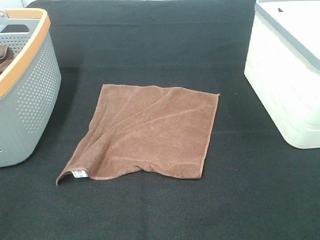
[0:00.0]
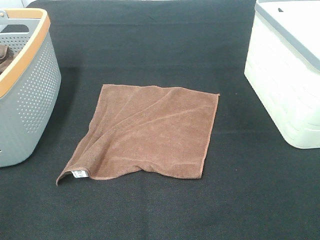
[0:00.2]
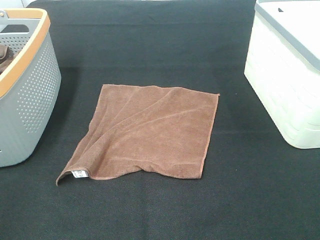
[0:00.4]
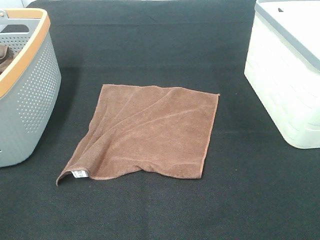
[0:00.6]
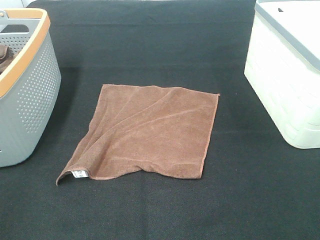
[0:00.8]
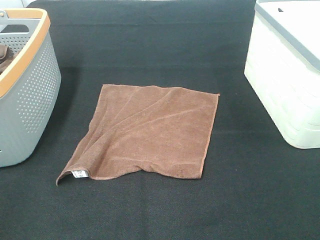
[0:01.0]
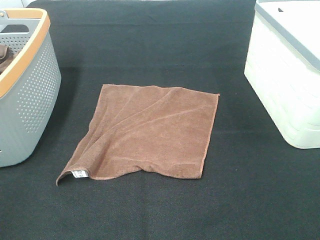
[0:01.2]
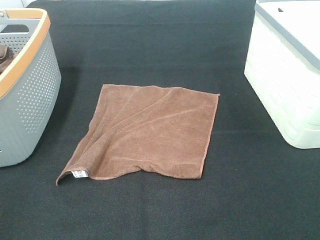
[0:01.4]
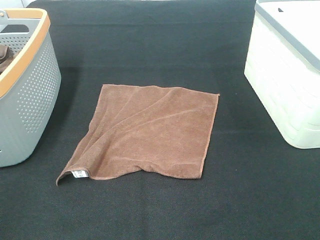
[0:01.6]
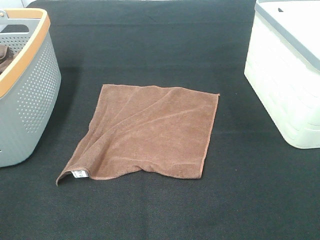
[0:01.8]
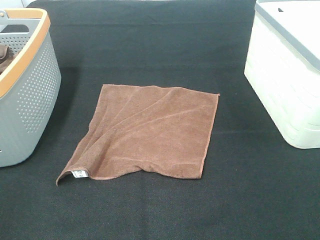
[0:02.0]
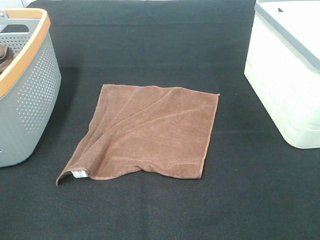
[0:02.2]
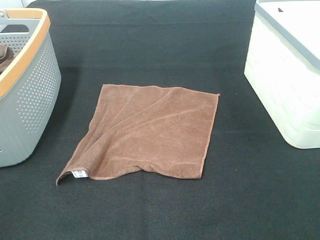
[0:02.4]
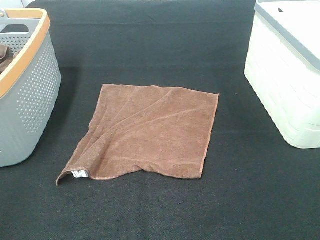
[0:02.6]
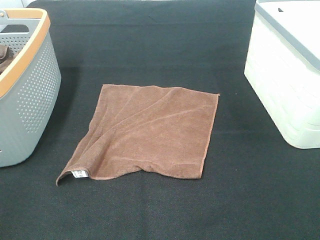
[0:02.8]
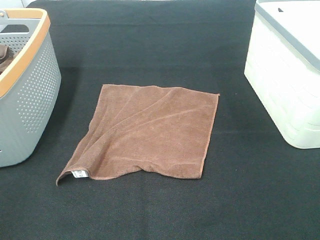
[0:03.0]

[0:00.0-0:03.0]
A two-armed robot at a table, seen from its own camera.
Task of the whole recording: Remove the towel and place it.
0:00.0 to 0:03.0: Both grippers stay put.

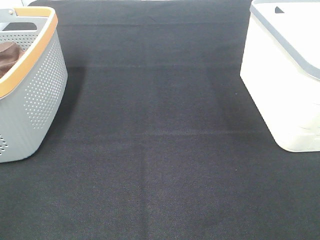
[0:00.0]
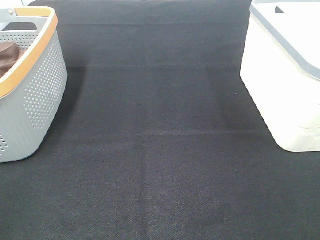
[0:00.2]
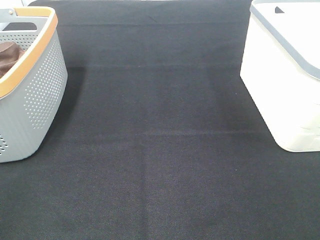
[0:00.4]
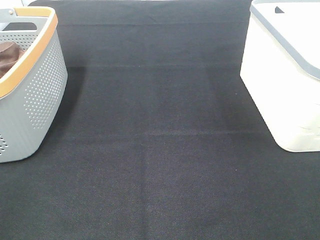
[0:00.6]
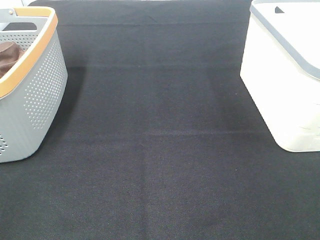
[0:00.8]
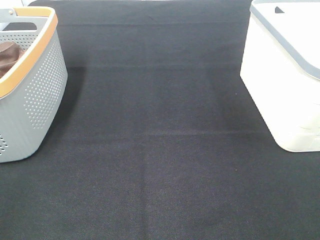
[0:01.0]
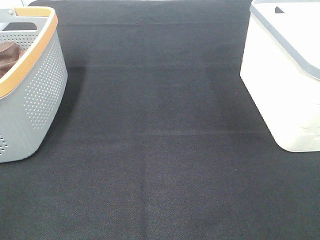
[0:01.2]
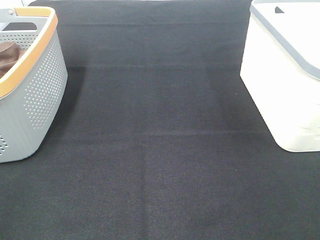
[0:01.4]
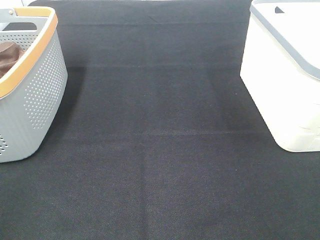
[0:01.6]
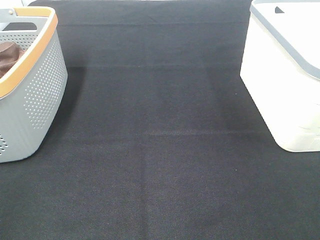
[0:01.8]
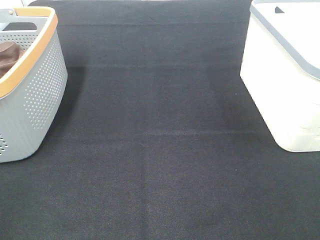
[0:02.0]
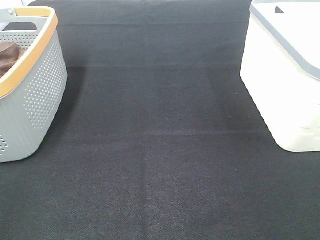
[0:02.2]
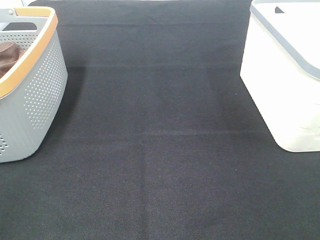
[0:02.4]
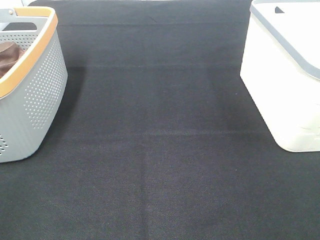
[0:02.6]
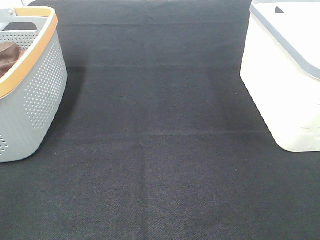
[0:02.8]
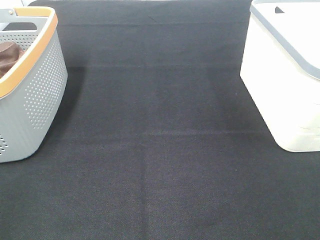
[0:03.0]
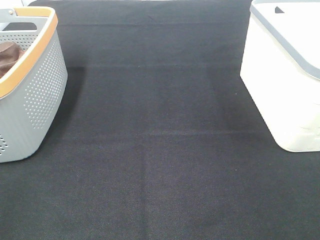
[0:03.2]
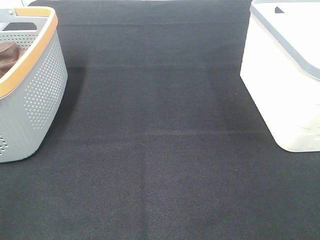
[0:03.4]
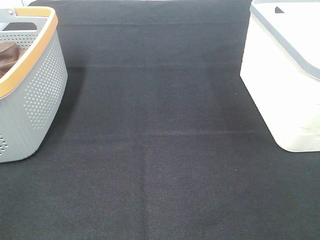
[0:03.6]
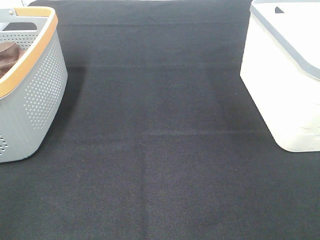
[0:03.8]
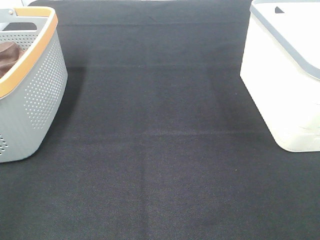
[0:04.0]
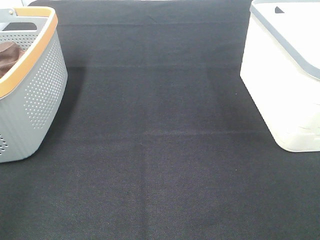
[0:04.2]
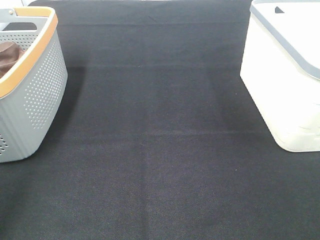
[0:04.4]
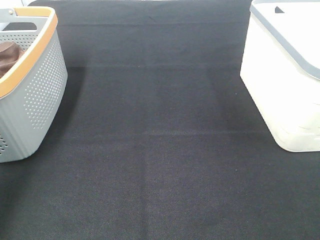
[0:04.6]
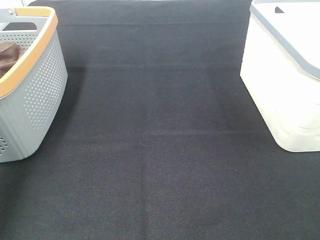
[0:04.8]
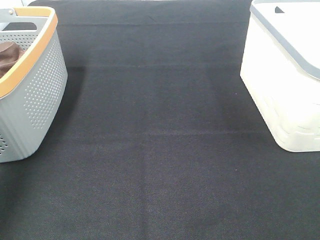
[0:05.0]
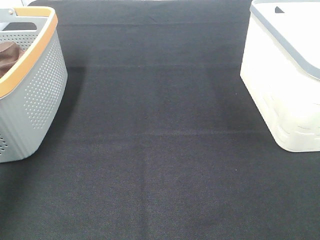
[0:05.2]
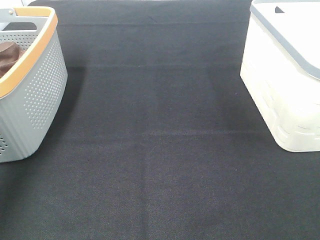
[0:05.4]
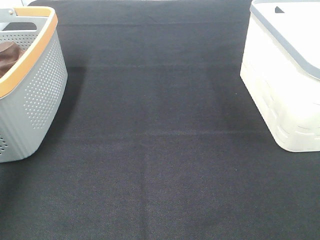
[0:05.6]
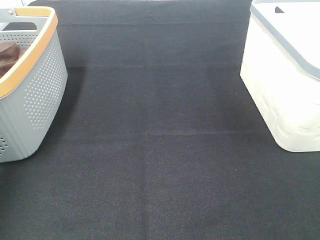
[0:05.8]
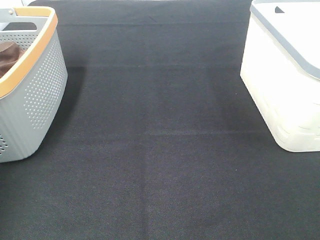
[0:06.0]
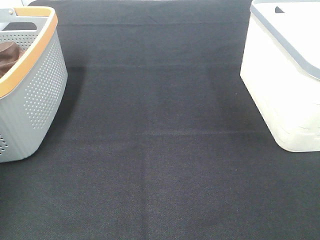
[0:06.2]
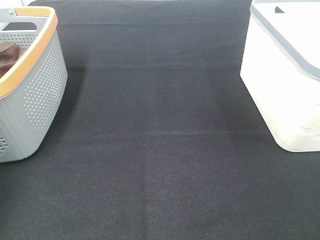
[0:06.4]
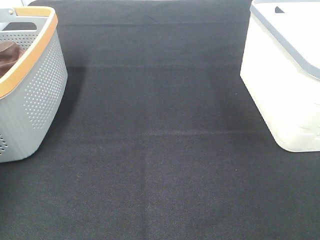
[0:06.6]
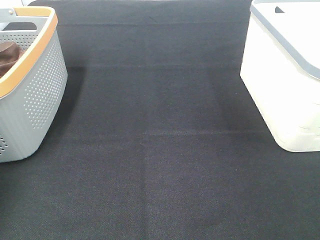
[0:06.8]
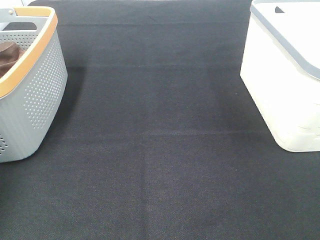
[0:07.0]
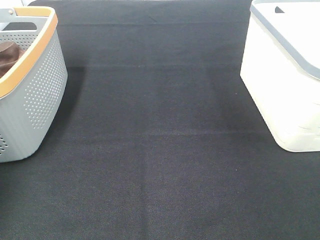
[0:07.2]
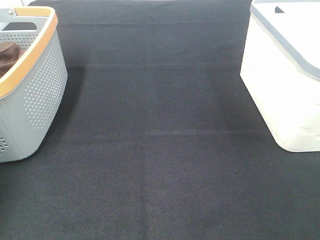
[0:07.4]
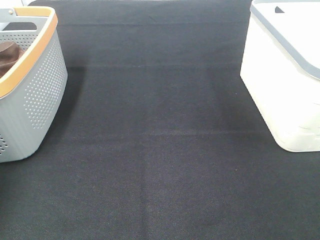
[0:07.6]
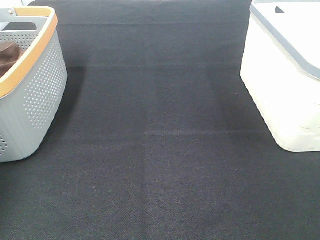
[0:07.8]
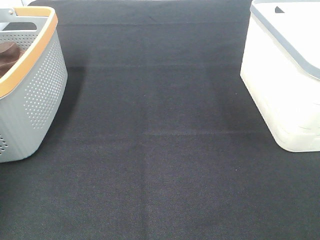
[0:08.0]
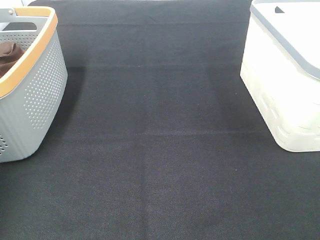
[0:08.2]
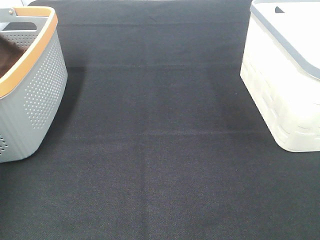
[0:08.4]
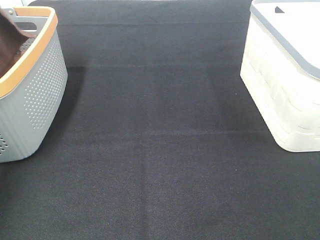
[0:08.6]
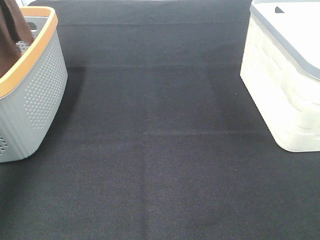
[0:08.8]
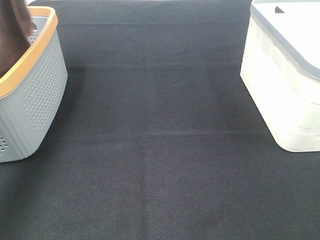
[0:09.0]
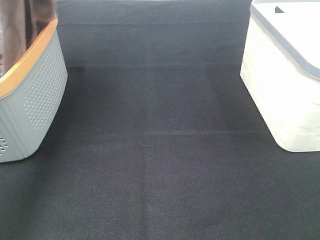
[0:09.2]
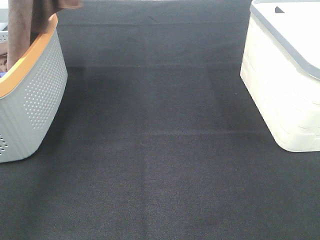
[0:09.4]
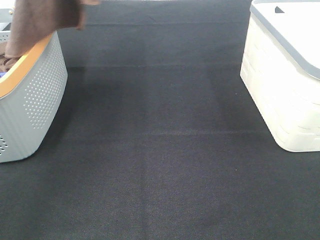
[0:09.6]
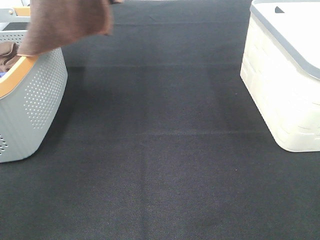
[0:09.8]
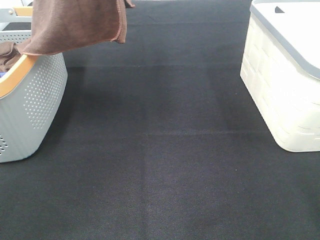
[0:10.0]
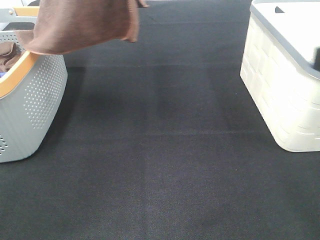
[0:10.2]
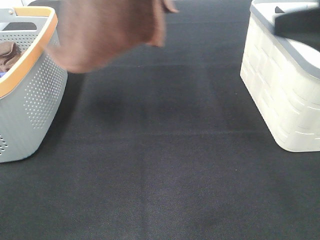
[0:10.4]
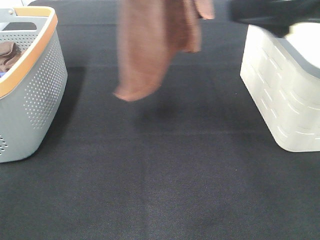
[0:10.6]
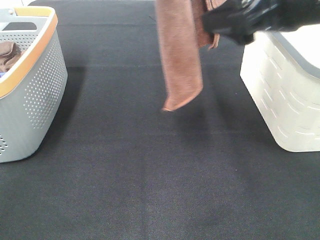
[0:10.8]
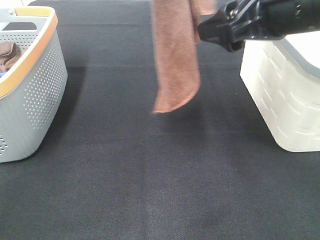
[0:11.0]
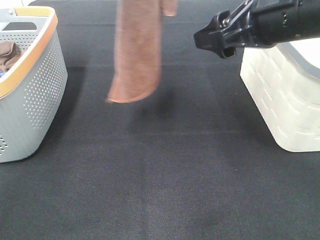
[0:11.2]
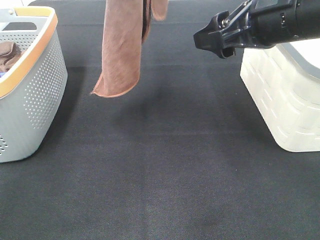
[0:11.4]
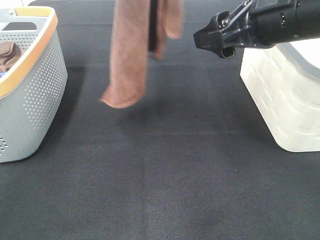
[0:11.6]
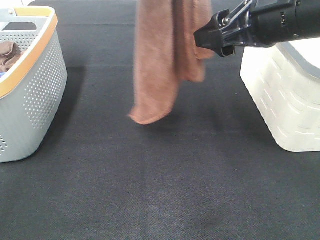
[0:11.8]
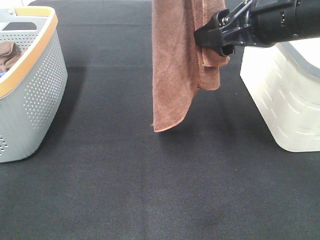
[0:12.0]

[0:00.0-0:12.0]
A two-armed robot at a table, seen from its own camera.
Task of the whole recording: Remove the towel and place it.
0:00.0 to 0:03.0: Neither gripper changes place.
0:03.0 to 0:04.4: The left gripper shifts approximately 15 cm forward.
0:07.6 to 0:09.0: The left gripper travels upward and to the right by about 30 cm.
0:09.0 to 0:10.4: The left gripper goes some 15 cm to the right; the right gripper moves forward and to the left, approximately 20 cm.
0:10.4 to 0:12.0: The right gripper is displaced forward, to the left and downward by about 15 cm.

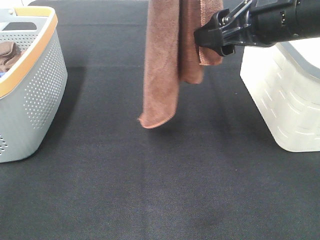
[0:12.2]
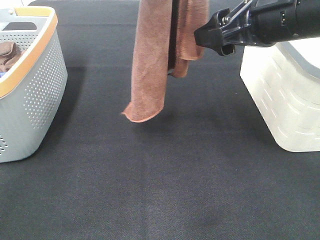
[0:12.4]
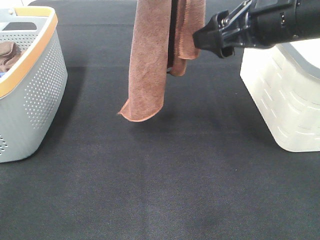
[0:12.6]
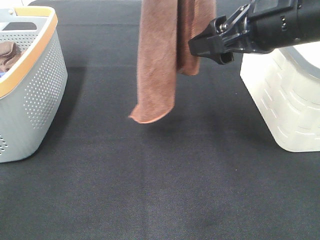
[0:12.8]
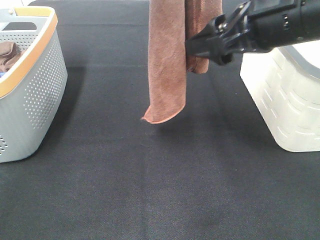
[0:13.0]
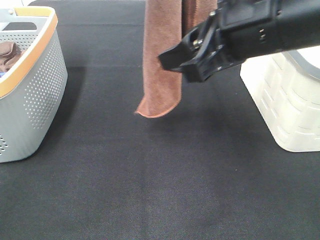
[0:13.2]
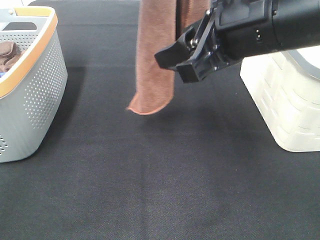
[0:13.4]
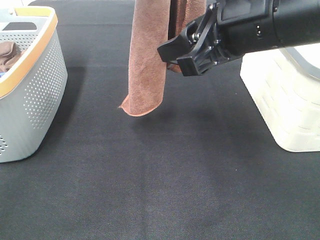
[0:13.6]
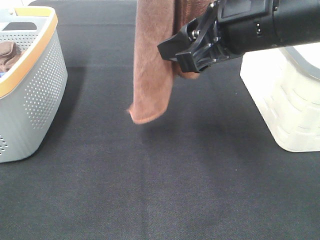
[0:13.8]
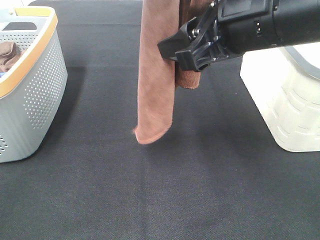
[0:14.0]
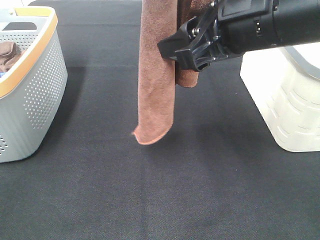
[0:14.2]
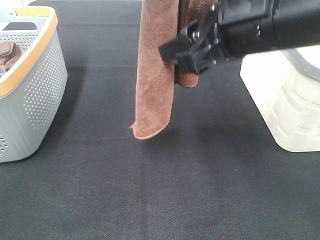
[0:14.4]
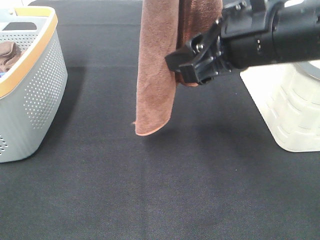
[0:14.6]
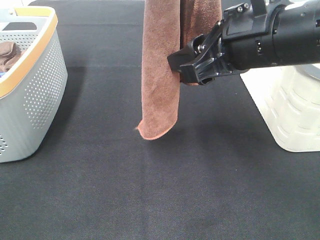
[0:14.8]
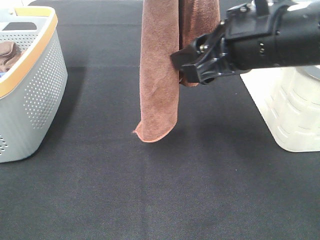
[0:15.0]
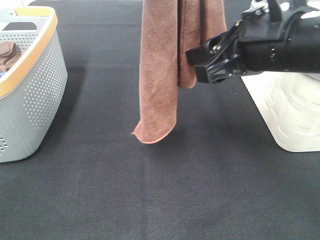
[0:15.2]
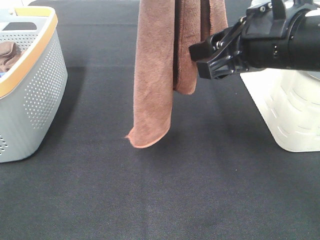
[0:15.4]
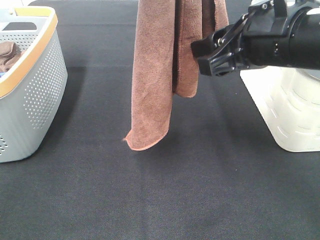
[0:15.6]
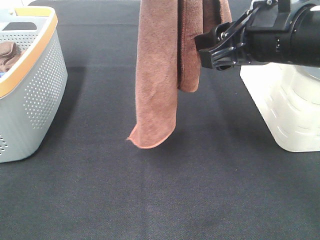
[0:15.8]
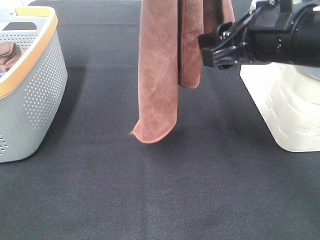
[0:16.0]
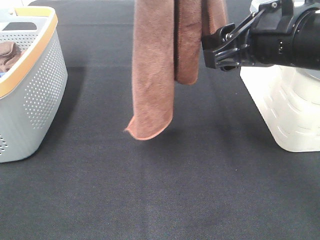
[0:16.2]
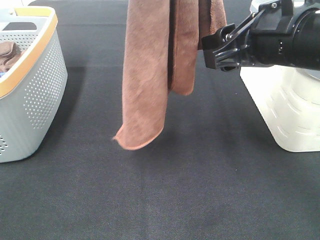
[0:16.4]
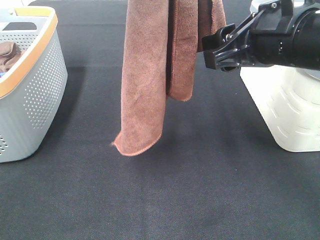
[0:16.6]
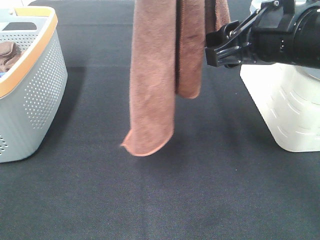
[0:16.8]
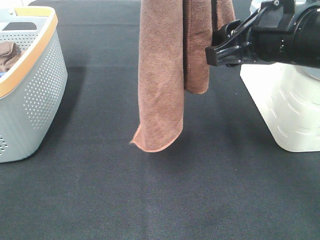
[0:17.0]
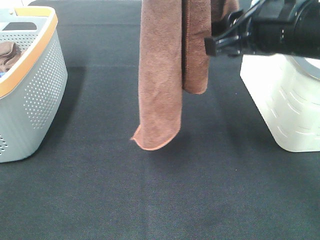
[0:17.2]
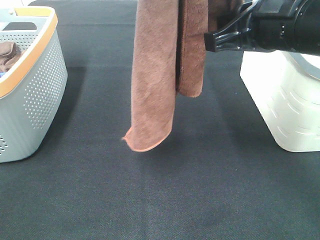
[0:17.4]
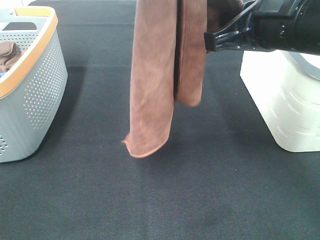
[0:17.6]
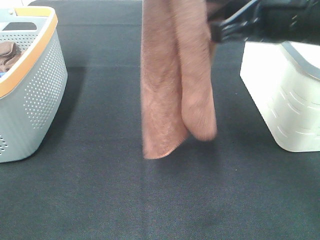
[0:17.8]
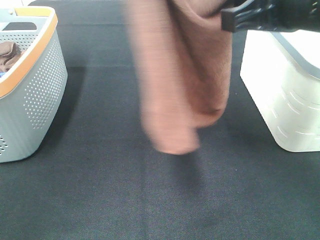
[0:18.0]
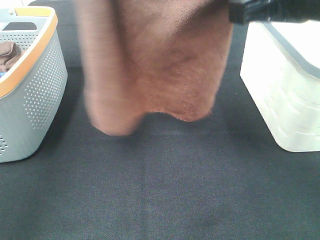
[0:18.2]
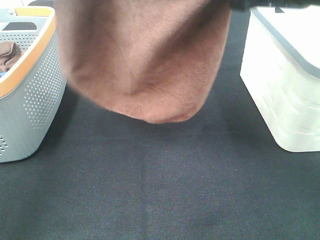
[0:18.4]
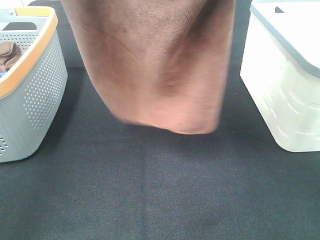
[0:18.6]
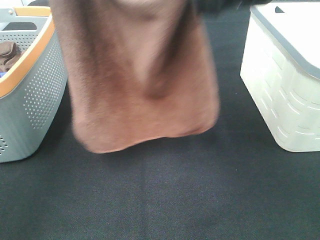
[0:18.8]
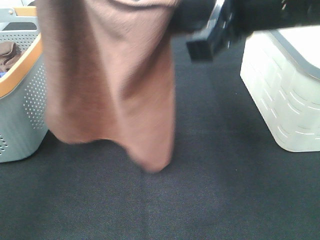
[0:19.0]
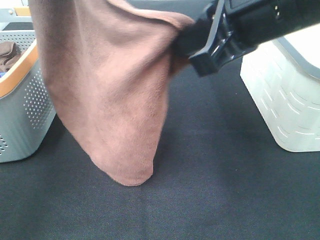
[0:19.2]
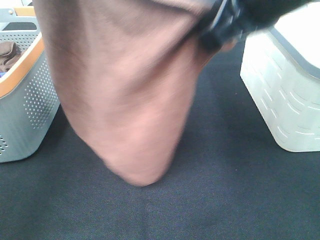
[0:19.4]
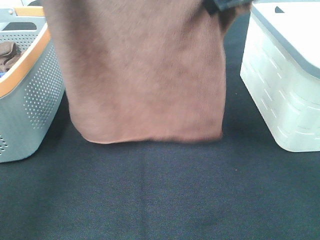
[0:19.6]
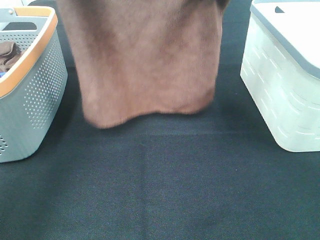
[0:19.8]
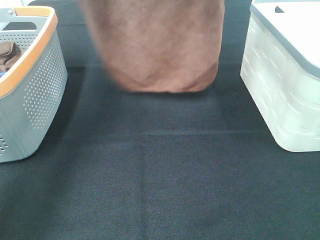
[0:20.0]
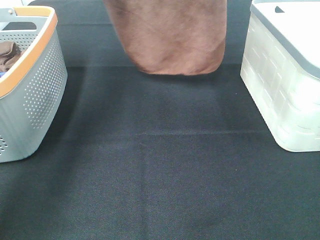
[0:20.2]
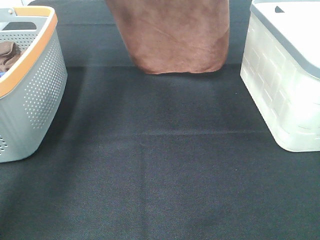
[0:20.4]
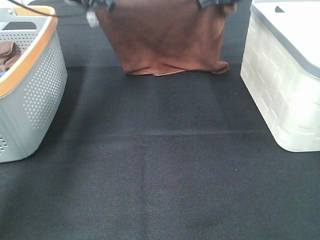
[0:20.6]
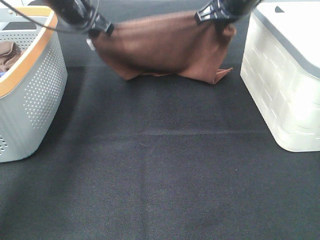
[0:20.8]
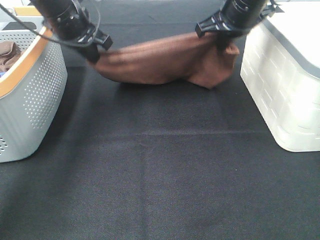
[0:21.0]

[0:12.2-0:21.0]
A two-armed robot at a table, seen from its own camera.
Task of the whole recording: Remove the towel and place it.
Step, 0:12.2 to 0:15.8: Right hand: grab a corner of the brown towel and straighten it.
Step, 0:16.0 to 0:18.2: Left hand: spread the brown towel flat on the table.
Step, 0:16.0 to 0:18.2: Right hand: spread the brown towel flat on the table.
0:12.2 to 0:13.6: The right gripper changes place by some 5 cm.
0:13.6 to 0:15.2: The grippers make only small movements.
0:15.2 to 0:16.6: The grippers make only small movements.
0:16.6 to 0:18.0: The left gripper heads to the left, covering roughly 5 cm. Meanwhile the right gripper shifts by some 5 cm, and closes up.
0:18.0 to 0:19.6: The left gripper is displaced forward and downward by roughly 10 cm; the right gripper is displaced forward and to the left by roughly 10 cm.
0:19.6 to 0:21.0: The right gripper heads forward and downward, covering about 20 cm. The left gripper goes approximately 20 cm downward and forward.
